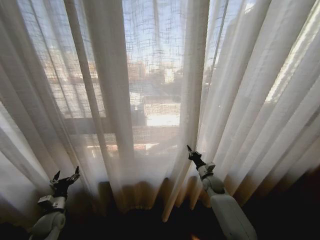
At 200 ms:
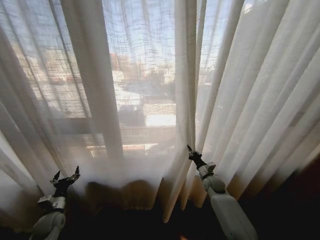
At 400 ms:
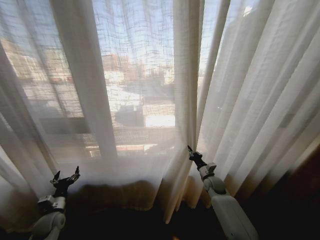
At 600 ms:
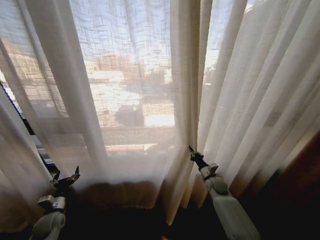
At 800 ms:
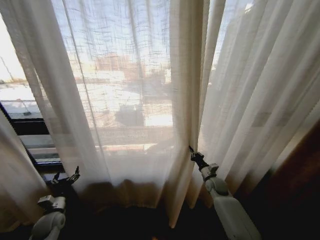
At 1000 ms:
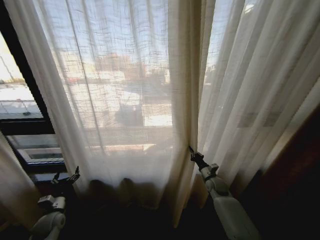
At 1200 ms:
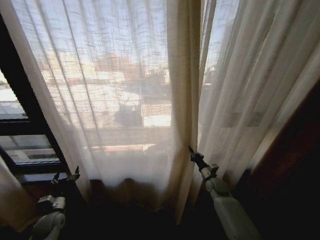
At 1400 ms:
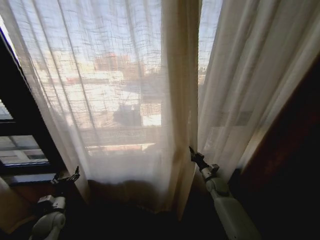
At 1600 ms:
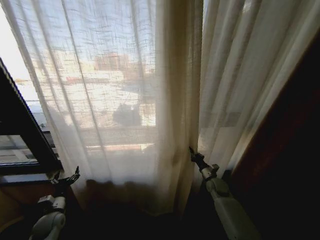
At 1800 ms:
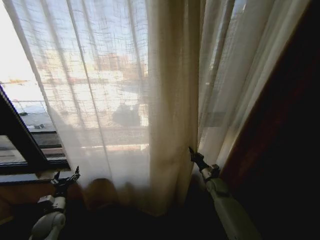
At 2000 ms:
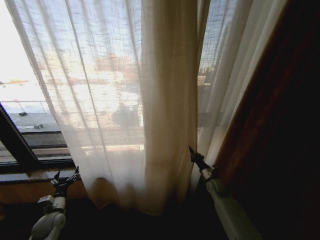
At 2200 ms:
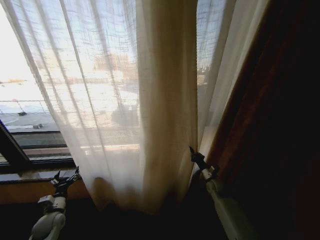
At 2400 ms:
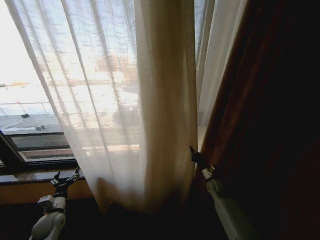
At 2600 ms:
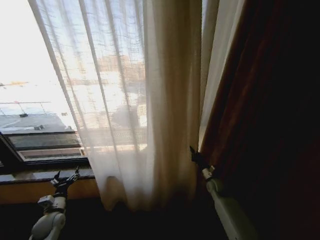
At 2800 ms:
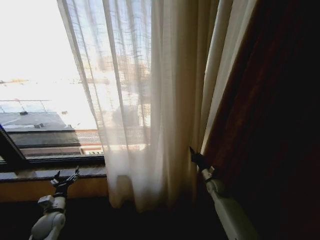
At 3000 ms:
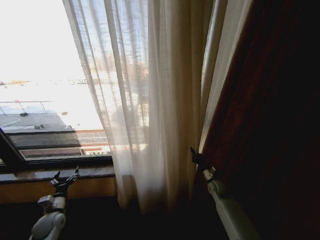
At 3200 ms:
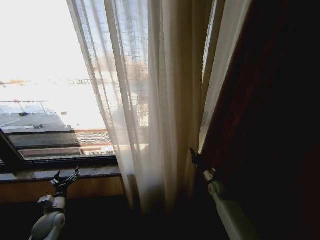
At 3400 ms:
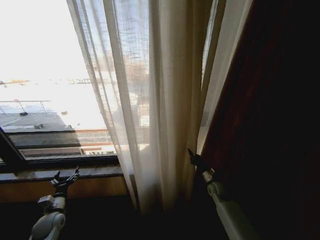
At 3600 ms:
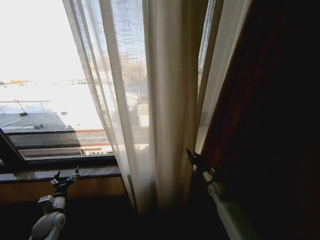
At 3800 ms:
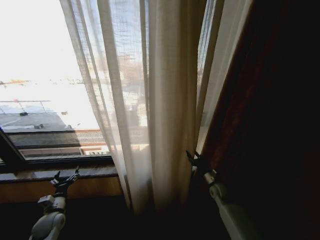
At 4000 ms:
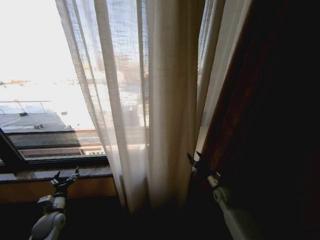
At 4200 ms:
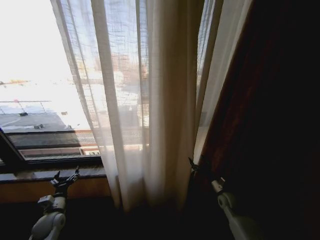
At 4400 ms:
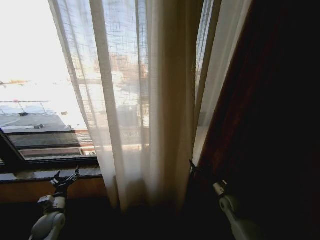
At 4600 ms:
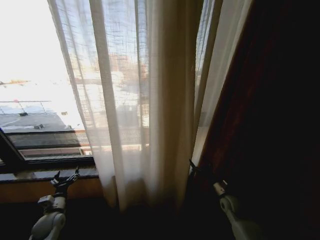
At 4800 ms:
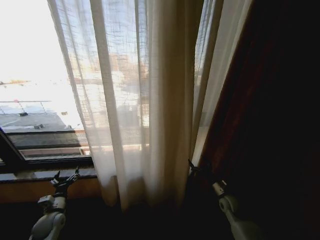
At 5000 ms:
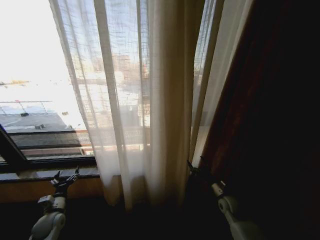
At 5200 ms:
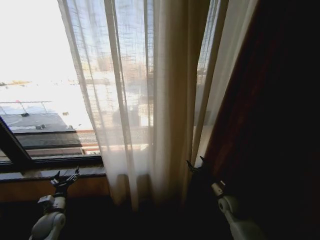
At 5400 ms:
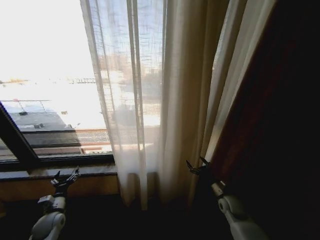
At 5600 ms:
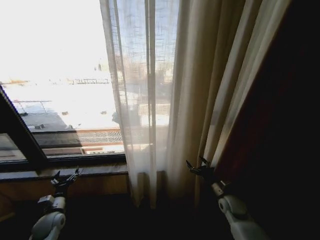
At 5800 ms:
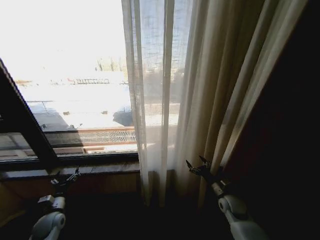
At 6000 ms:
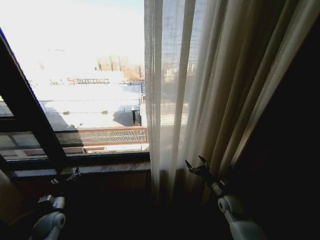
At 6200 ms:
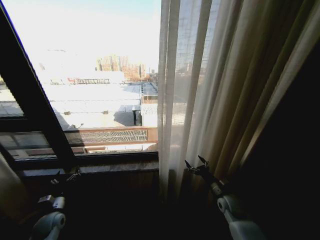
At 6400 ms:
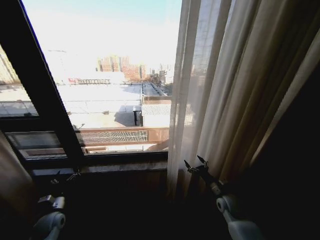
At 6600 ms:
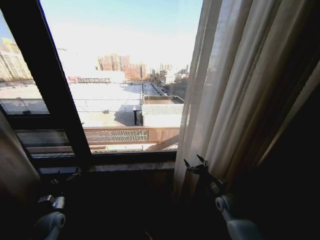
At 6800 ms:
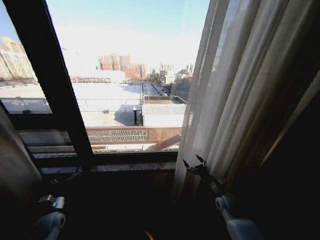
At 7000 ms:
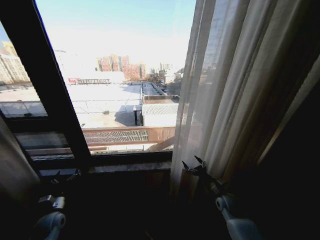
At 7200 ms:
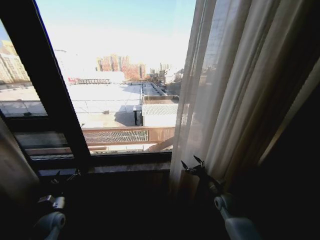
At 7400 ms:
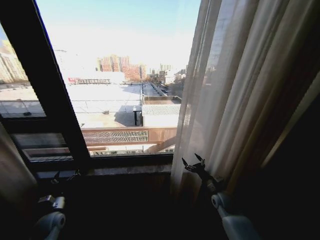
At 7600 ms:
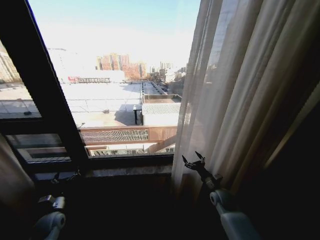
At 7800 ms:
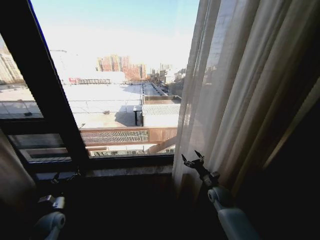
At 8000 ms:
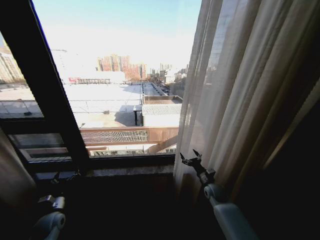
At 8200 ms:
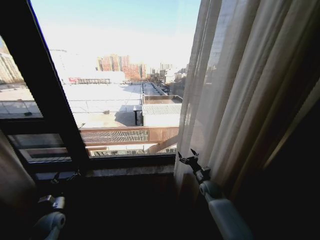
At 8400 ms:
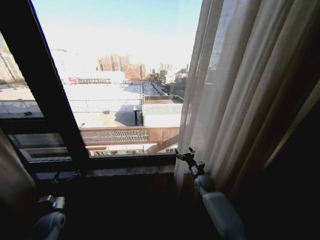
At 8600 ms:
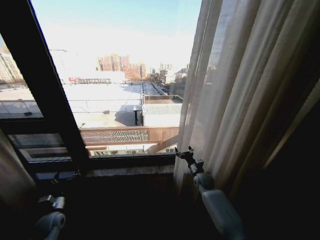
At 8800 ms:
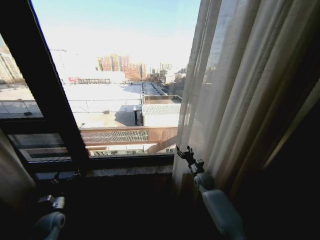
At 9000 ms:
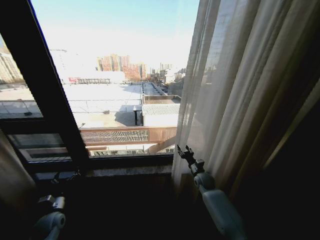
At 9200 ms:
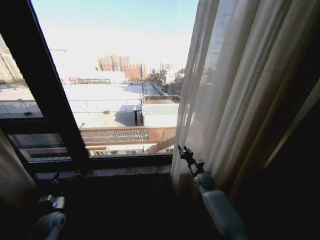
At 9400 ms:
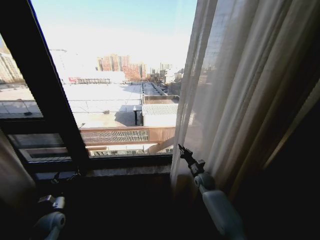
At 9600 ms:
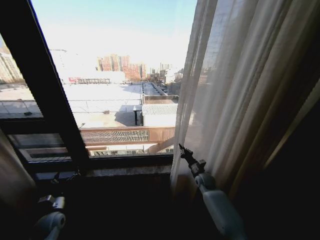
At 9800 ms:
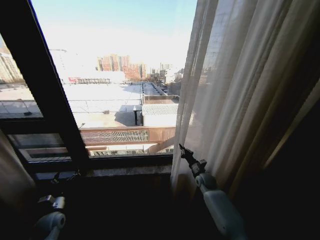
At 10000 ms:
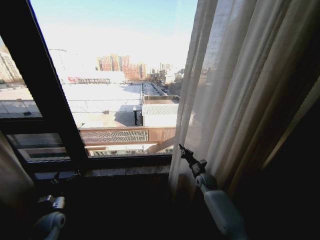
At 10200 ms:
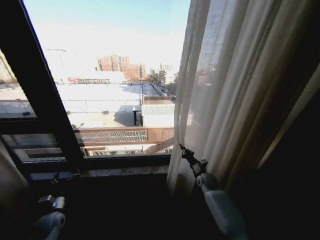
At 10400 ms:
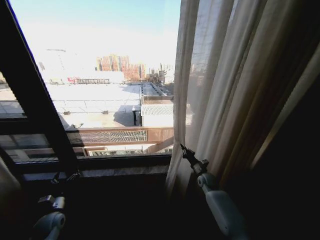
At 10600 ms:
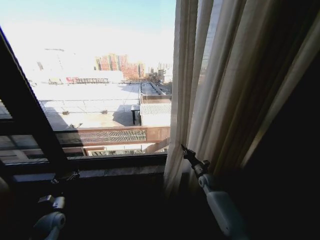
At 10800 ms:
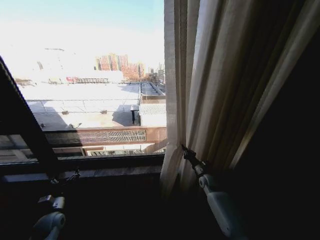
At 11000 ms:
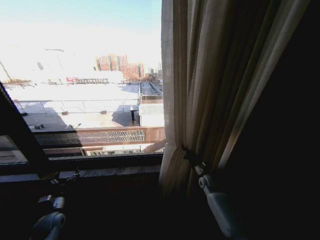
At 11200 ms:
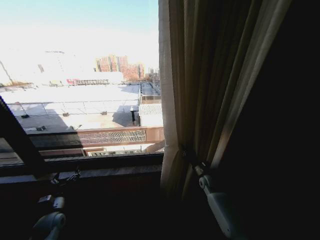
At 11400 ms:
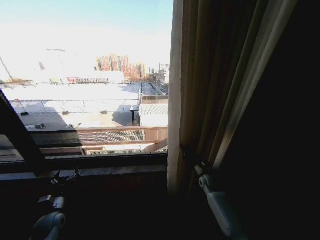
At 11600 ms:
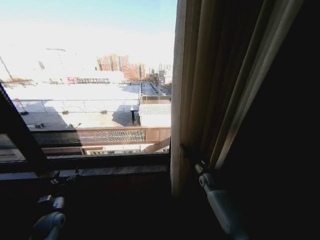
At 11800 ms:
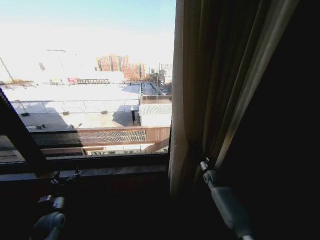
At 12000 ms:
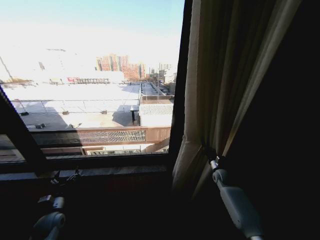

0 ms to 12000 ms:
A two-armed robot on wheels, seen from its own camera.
Task of the whole recording: Open the curtains by pulling them apart, changing their state from closed to fully open.
3000 ms to 4400 ms: The right gripper goes approximately 10 cm backward, and opens.
7600 ms to 9000 ms: The right gripper heads forward, covering some 10 cm, and closes up.
9000 ms to 10400 ms: The right gripper closes its fingers.
10400 ms to 12000 ms: The right gripper heads to the right, covering approximately 10 cm.

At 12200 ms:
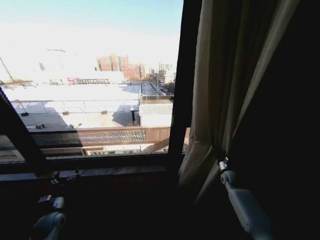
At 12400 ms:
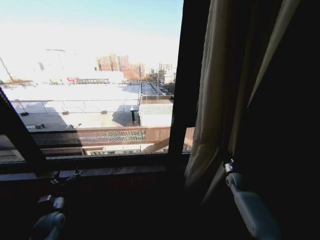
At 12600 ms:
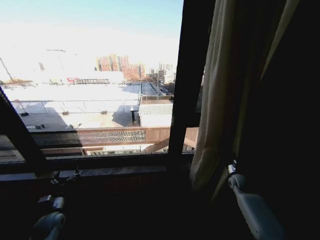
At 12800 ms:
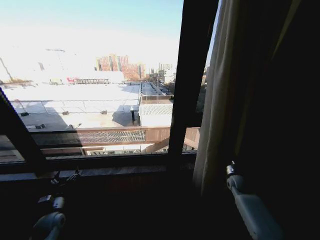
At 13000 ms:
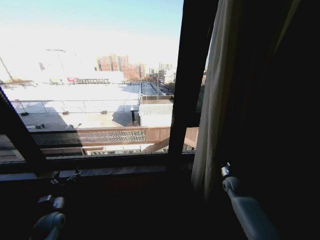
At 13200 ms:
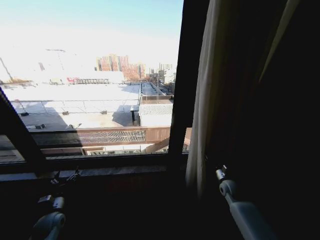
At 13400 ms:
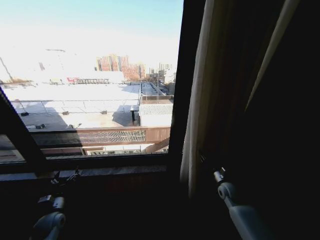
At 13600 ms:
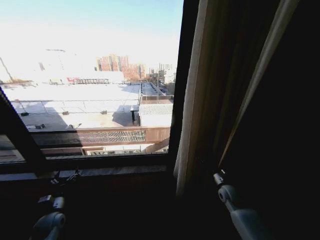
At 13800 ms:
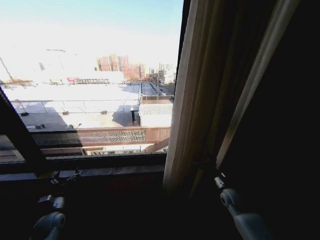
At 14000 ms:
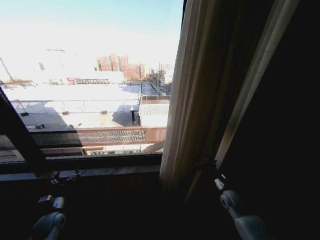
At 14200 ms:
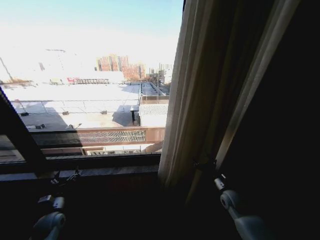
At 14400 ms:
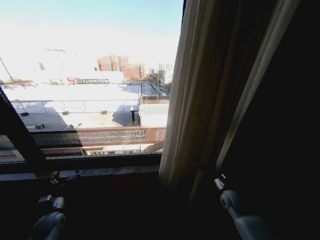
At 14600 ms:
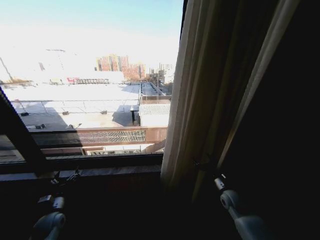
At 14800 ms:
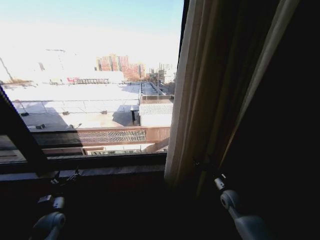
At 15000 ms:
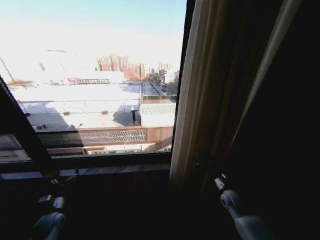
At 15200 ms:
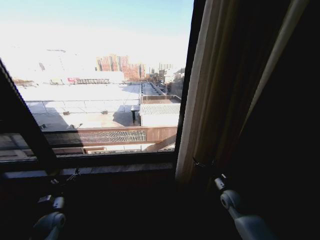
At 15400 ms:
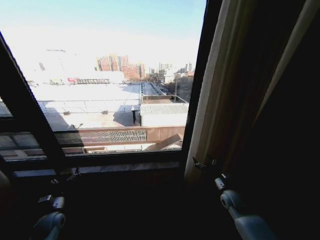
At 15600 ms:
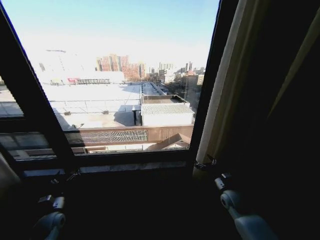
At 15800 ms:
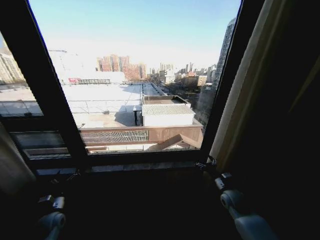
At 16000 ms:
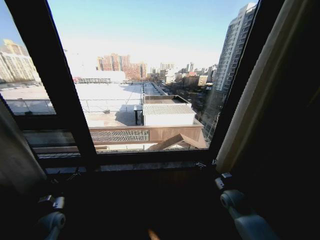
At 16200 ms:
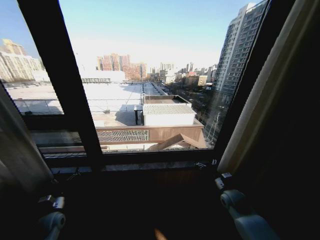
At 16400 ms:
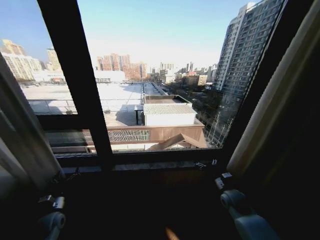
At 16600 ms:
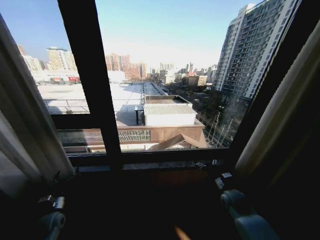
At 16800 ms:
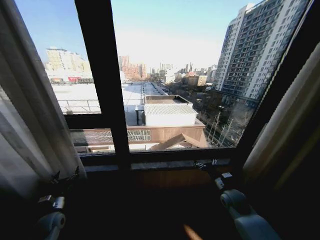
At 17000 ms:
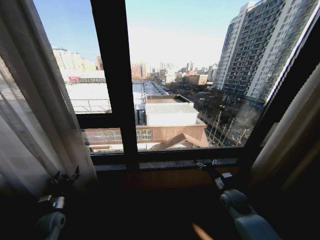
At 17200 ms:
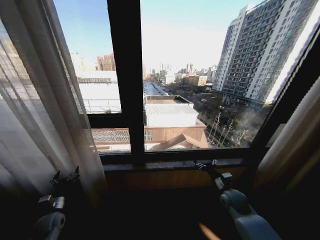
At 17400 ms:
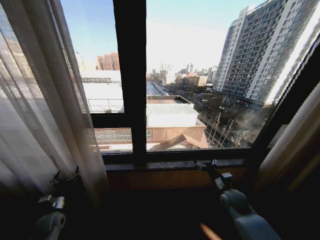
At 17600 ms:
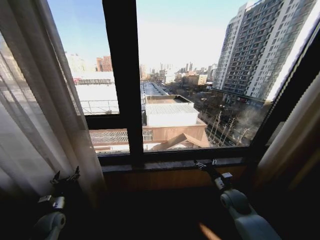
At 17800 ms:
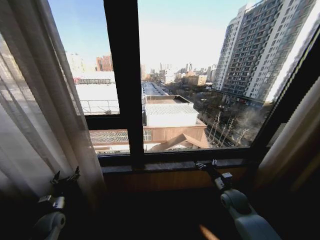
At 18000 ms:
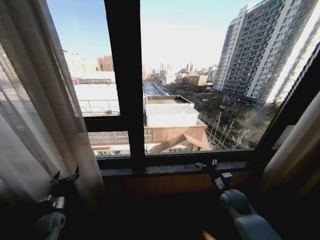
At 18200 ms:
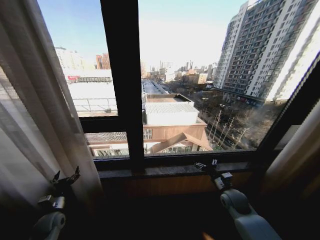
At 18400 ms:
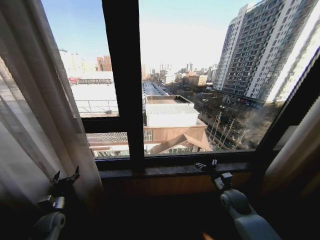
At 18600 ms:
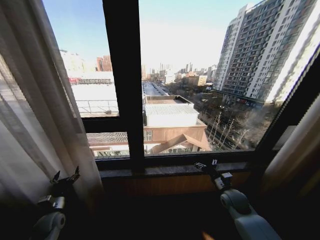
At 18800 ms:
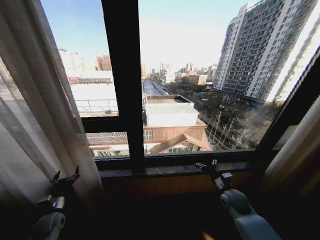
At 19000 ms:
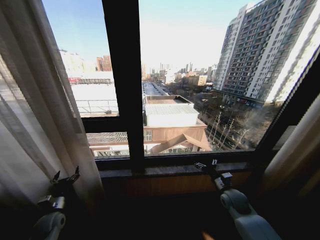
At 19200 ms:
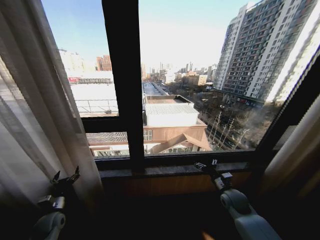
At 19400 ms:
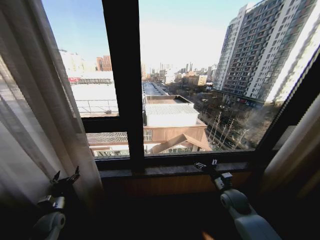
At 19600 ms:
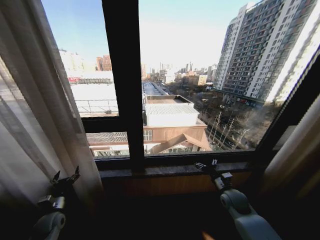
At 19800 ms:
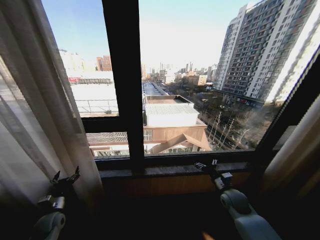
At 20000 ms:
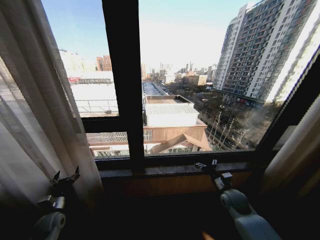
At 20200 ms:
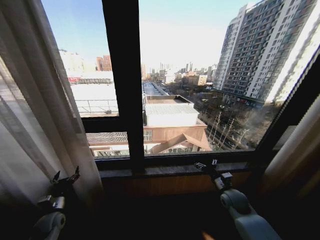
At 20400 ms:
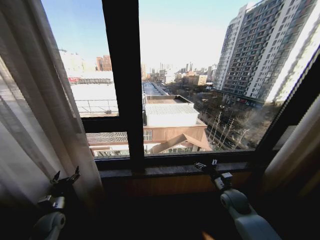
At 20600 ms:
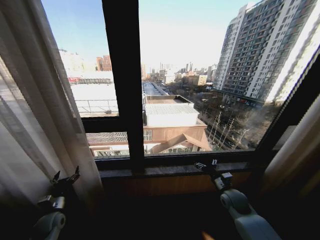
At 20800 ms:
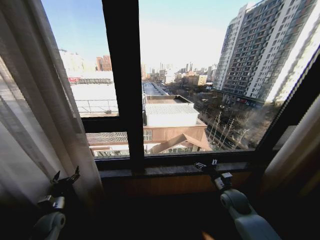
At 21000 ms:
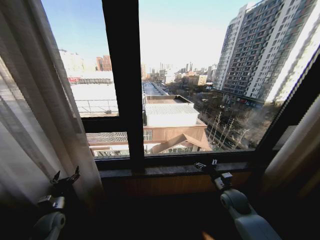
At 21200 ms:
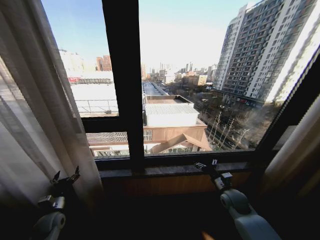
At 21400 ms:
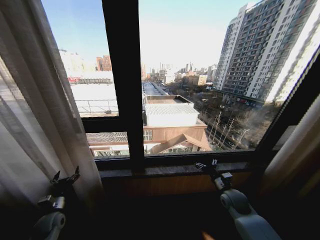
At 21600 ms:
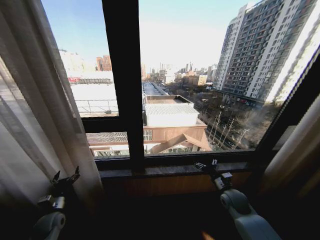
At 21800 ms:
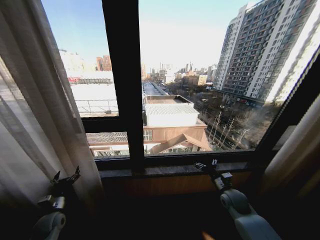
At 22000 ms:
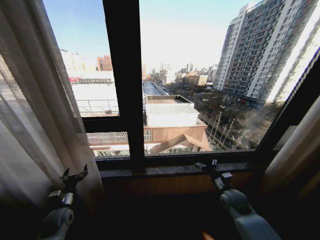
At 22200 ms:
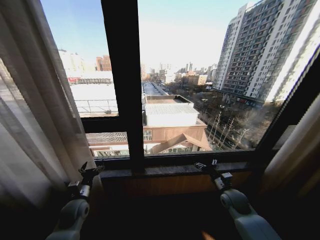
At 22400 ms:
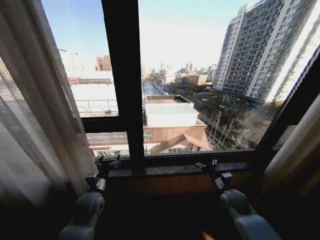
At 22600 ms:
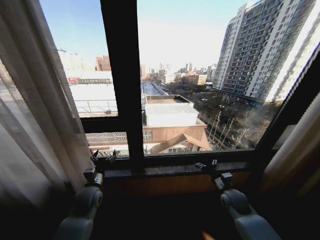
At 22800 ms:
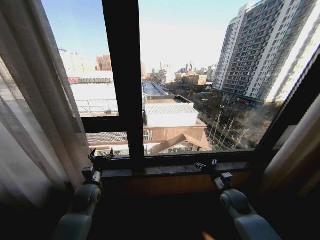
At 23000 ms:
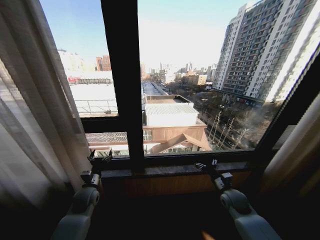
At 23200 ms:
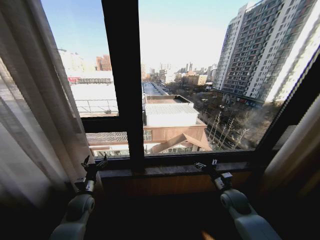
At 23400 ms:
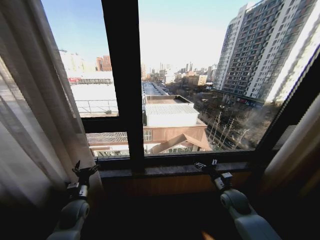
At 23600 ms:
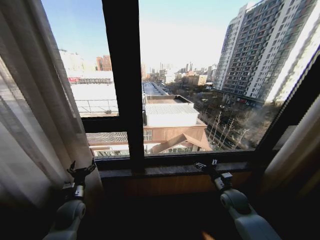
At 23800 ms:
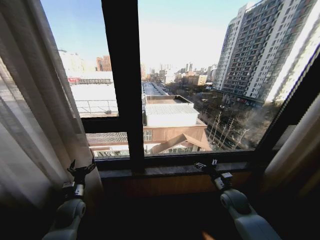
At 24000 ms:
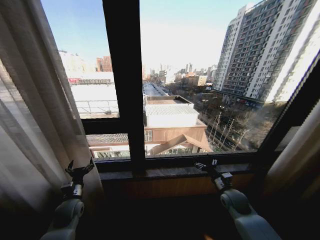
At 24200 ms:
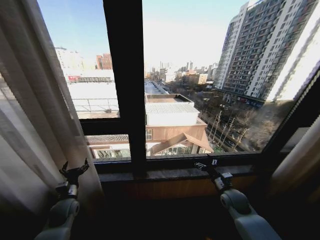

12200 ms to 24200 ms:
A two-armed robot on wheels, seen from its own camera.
Task of the whole recording: Open the curtains by pulling them apart, changing their state from closed to fully open.
12200 ms to 13800 ms: The right gripper is displaced backward and to the left by roughly 10 cm, and opens.
13800 ms to 15200 ms: Neither gripper changes place.
18200 ms to 21200 ms: Neither gripper changes place.
21200 ms to 22600 ms: The left gripper heads to the right and upward, covering about 20 cm.
22600 ms to 24200 ms: The left gripper is displaced to the left and downward by about 10 cm.
